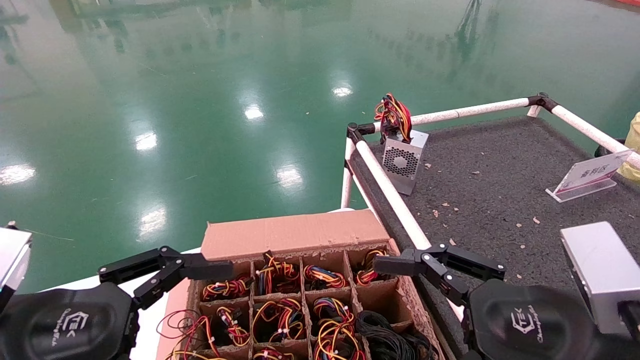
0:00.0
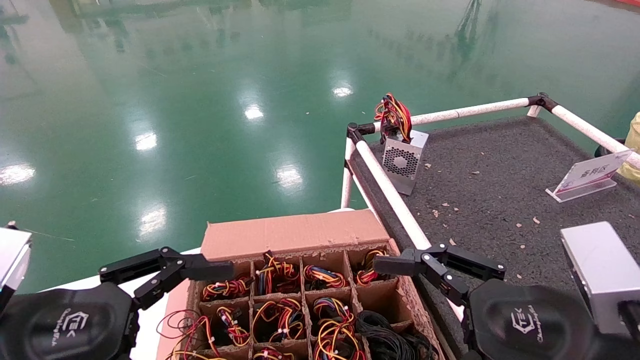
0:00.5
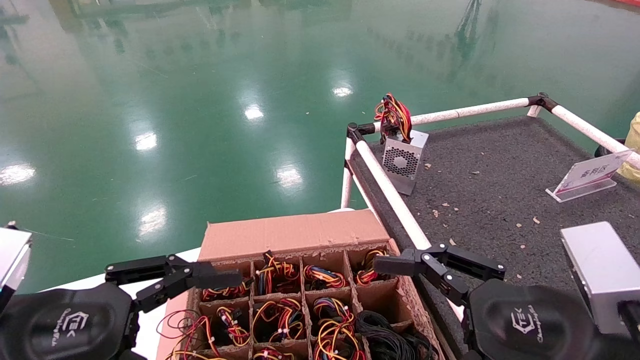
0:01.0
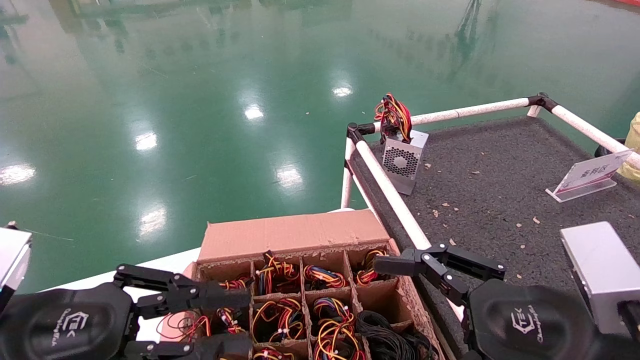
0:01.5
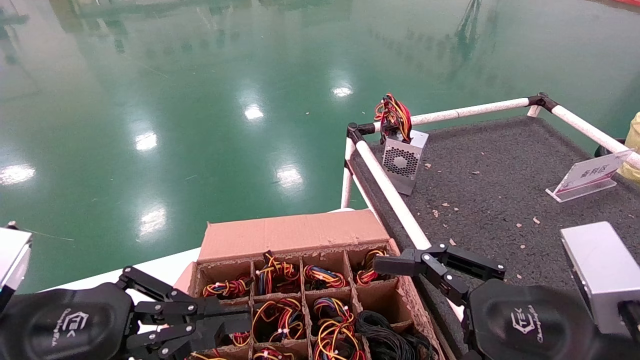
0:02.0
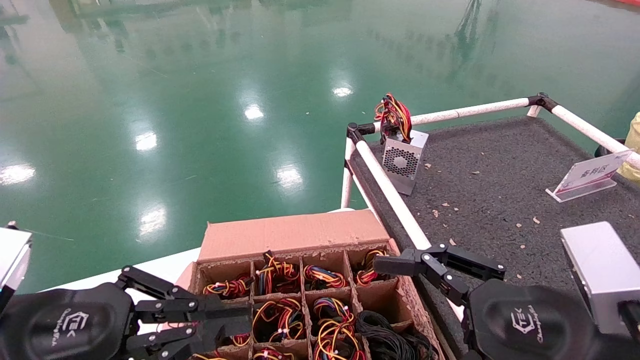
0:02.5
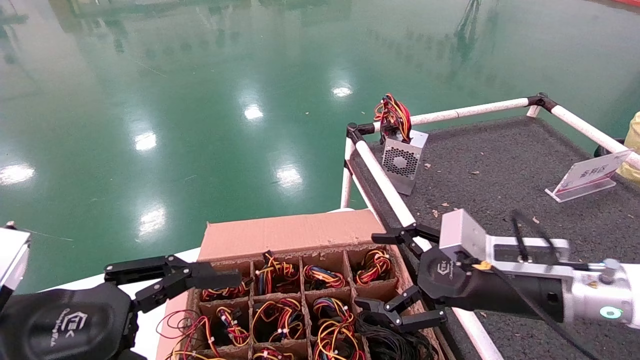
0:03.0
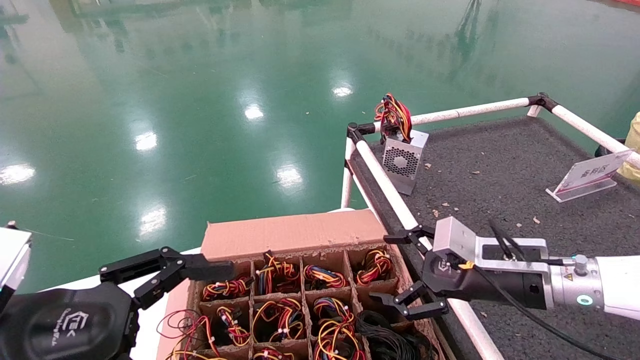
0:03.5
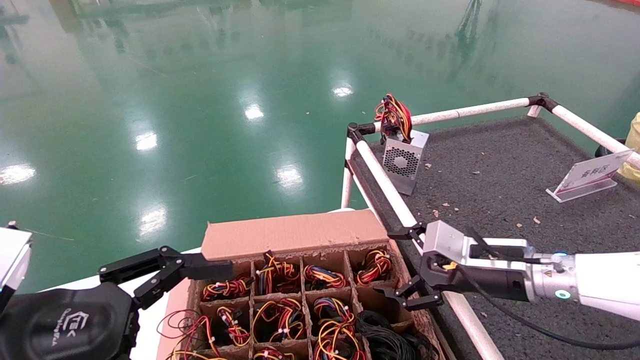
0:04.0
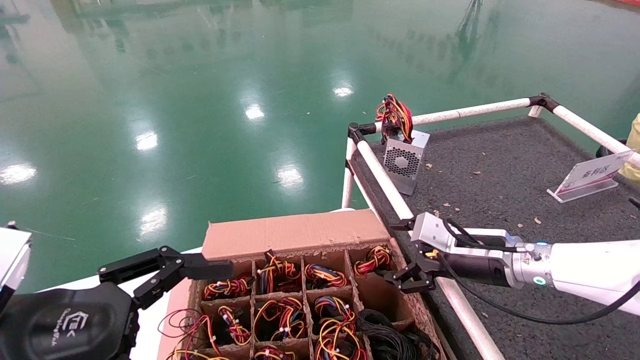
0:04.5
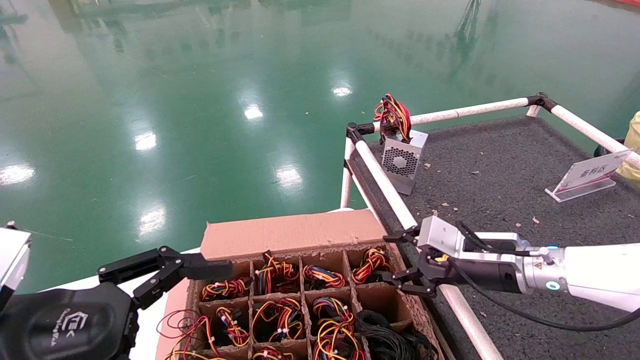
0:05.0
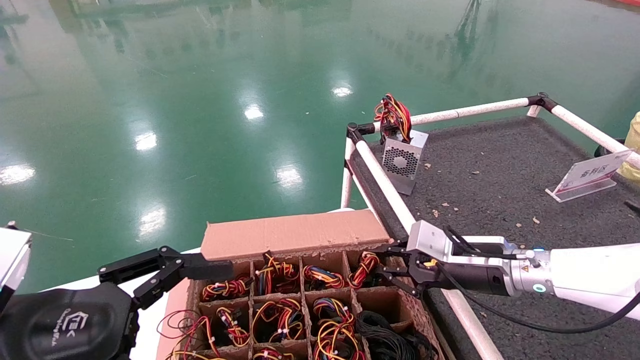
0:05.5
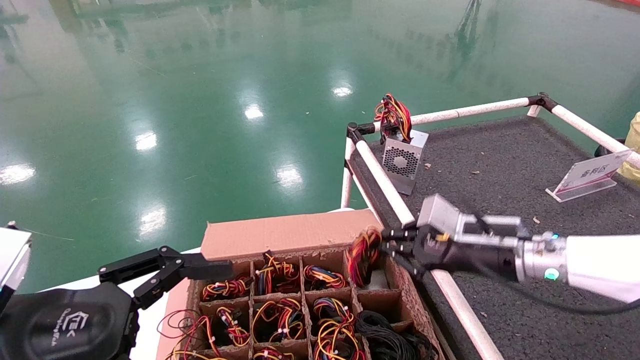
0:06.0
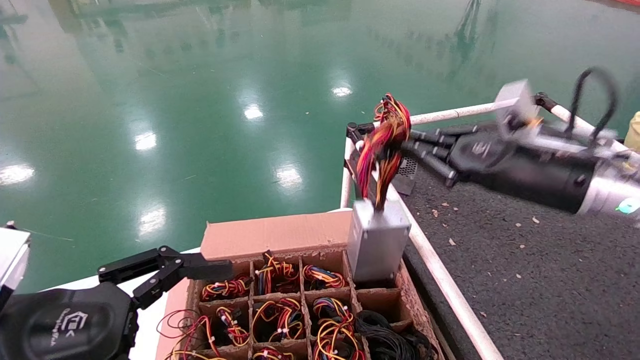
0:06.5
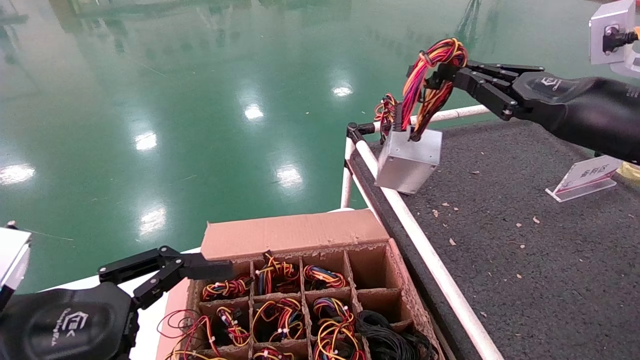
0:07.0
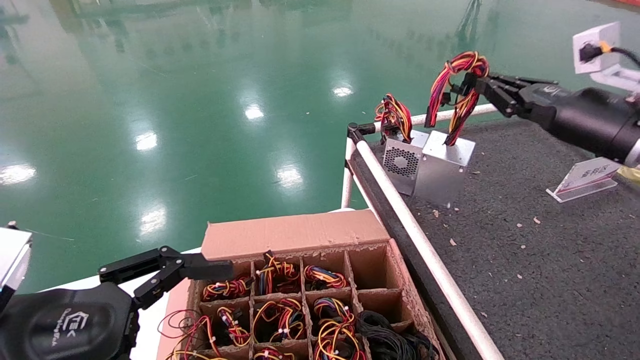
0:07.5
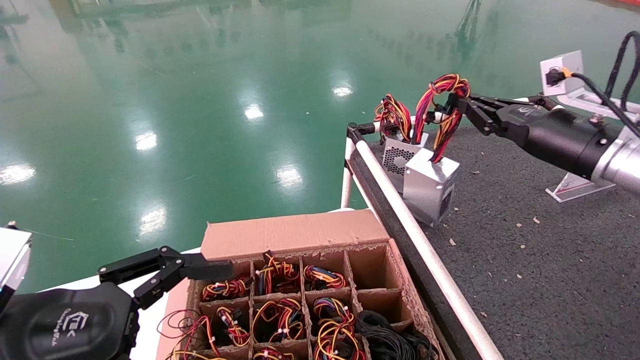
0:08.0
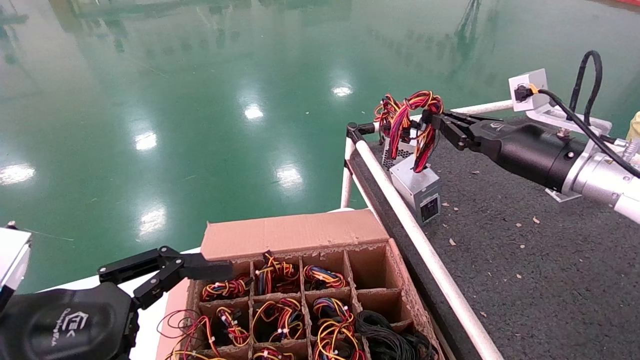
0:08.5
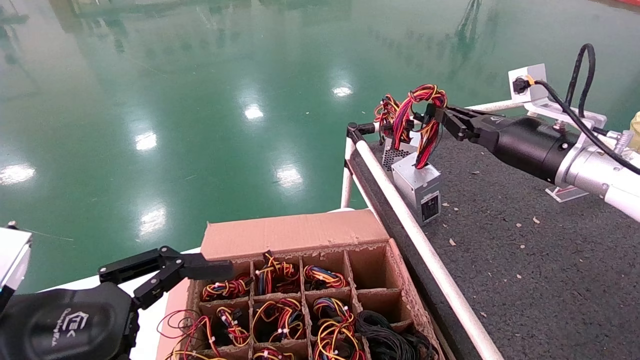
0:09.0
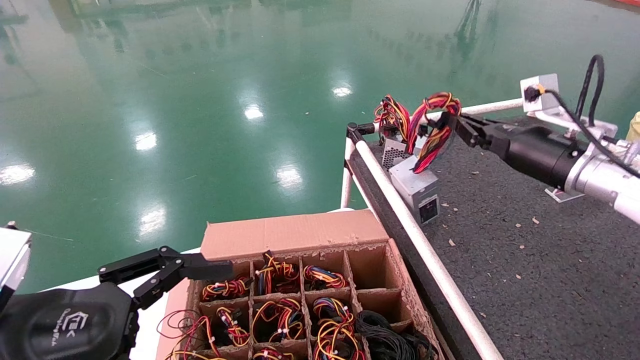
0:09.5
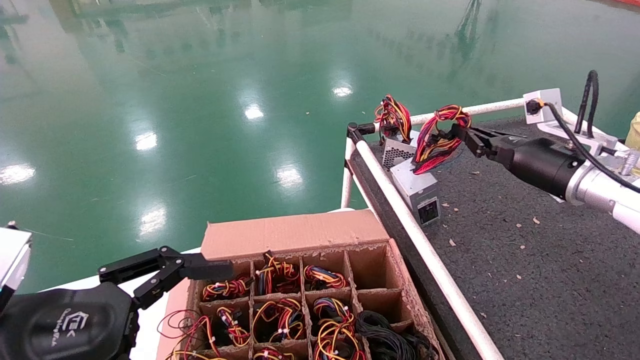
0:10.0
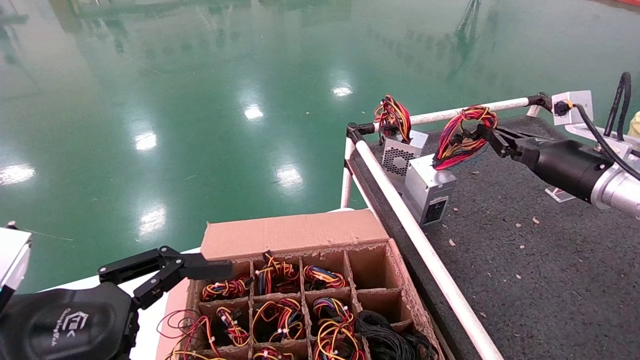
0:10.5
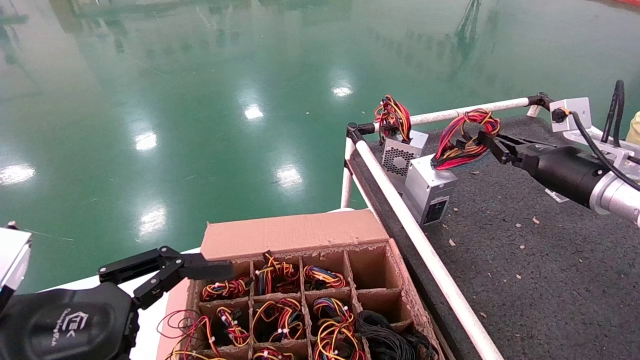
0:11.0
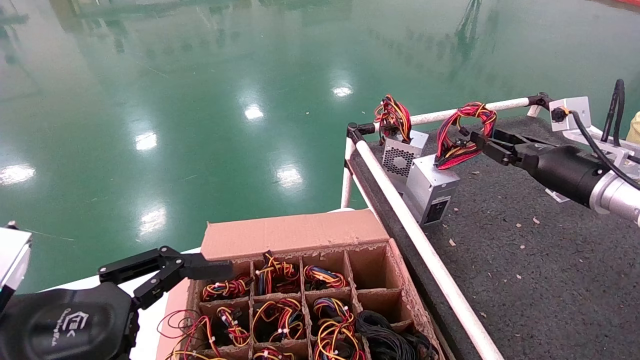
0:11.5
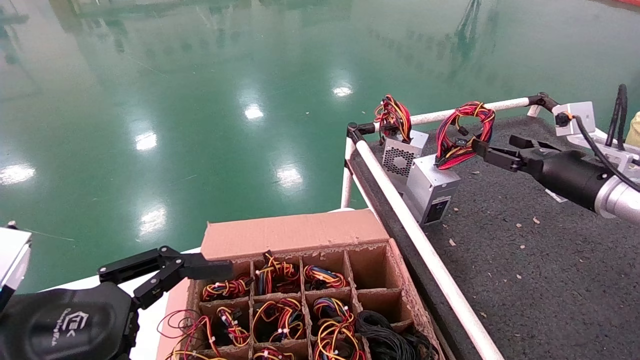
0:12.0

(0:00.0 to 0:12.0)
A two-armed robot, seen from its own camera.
Step, 0:02.0 - 0:06.0: Grab and lift the power supply from the large box.
Step, 0:06.5 - 0:11.5: Place the power supply on the operating table.
0:00.0 - 0:02.0: The left gripper closes its fingers.
0:02.0 - 0:04.0: The right gripper moves forward, about 20 cm; the left gripper opens its fingers.
0:04.0 - 0:06.0: The right gripper closes its fingers.
0:06.0 - 0:08.0: The right gripper moves upward and to the right, roughly 20 cm.
0:08.0 - 0:10.0: The right gripper shifts by approximately 5 cm.
0:10.0 - 0:12.0: The right gripper opens its fingers.

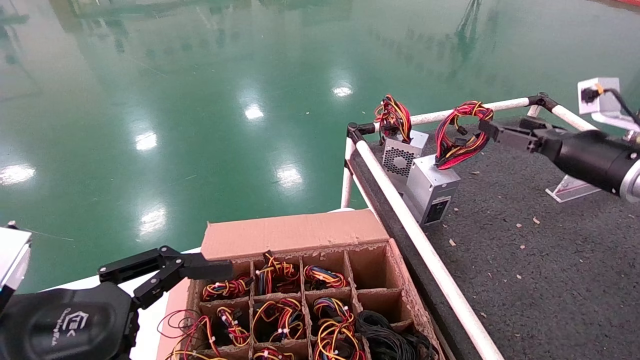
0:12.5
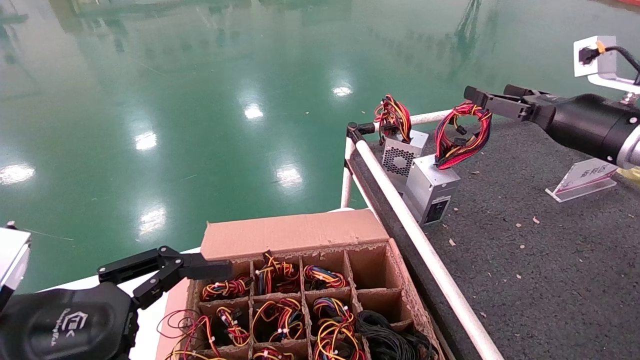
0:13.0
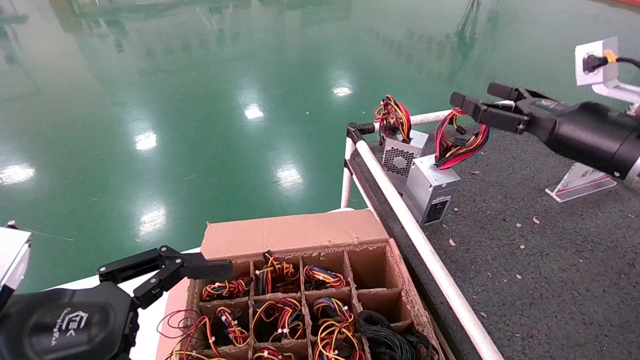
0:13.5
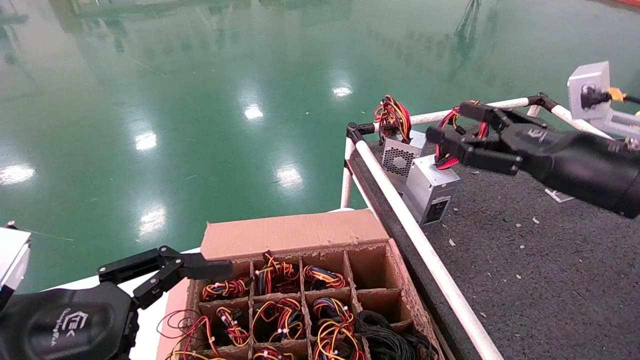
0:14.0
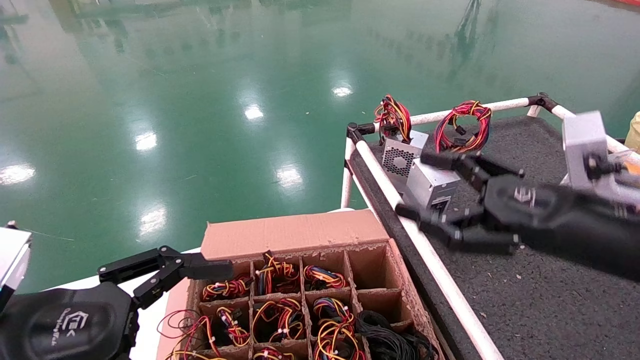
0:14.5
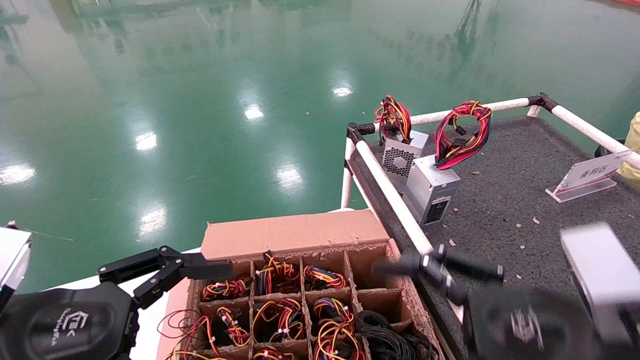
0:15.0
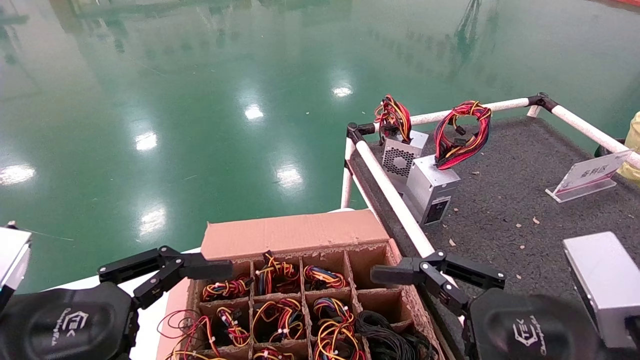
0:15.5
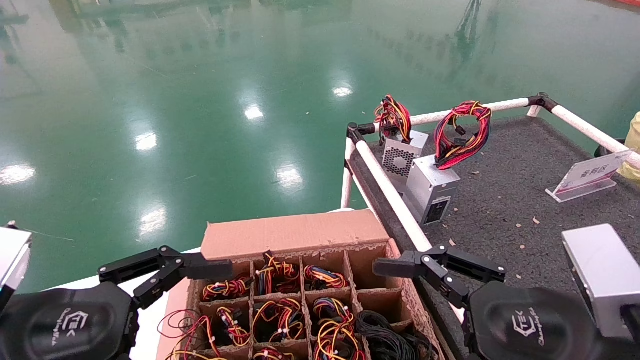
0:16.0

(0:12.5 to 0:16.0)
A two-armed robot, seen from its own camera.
0:12.5 - 0:14.5: The right gripper shifts some 15 cm backward and to the left.
0:14.5 - 0:16.0: The right gripper goes roughly 15 cm backward, downward and to the left.
